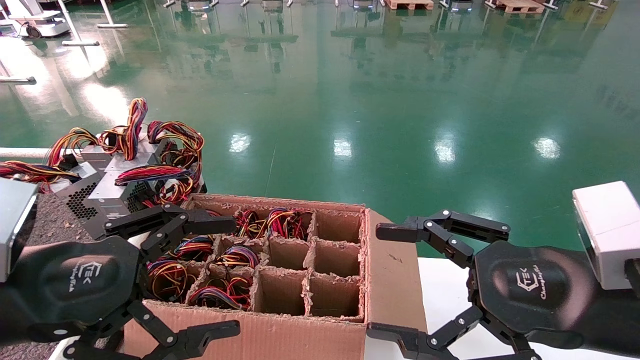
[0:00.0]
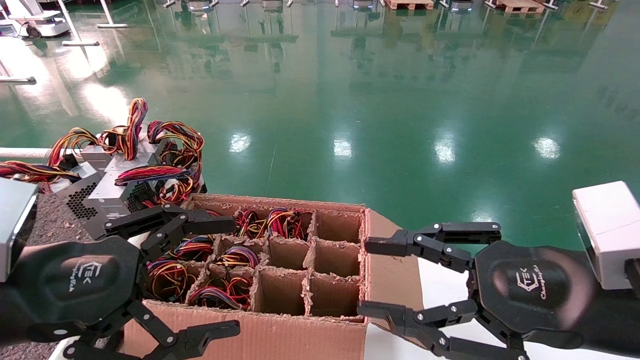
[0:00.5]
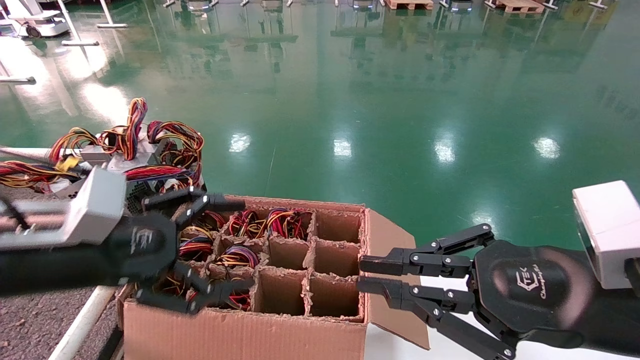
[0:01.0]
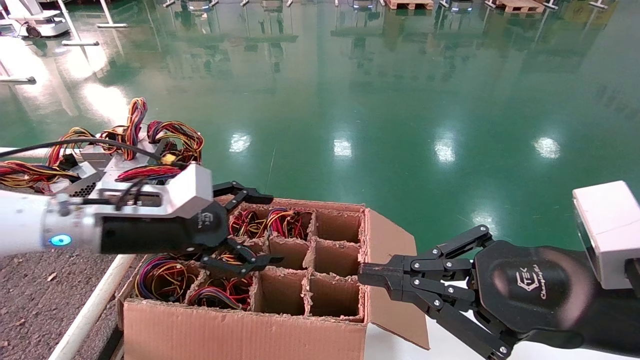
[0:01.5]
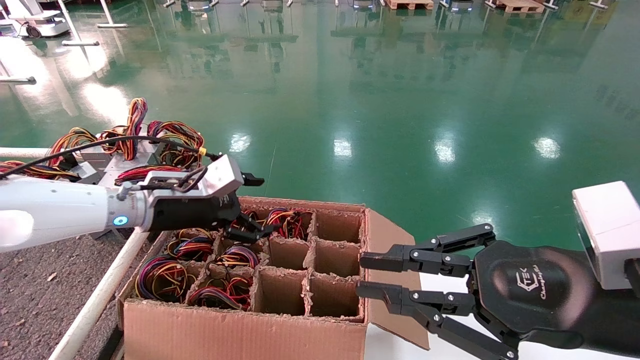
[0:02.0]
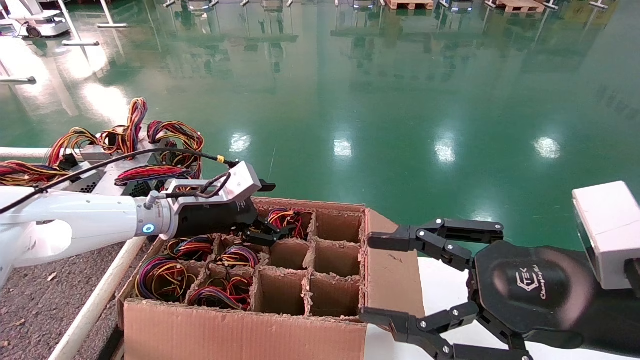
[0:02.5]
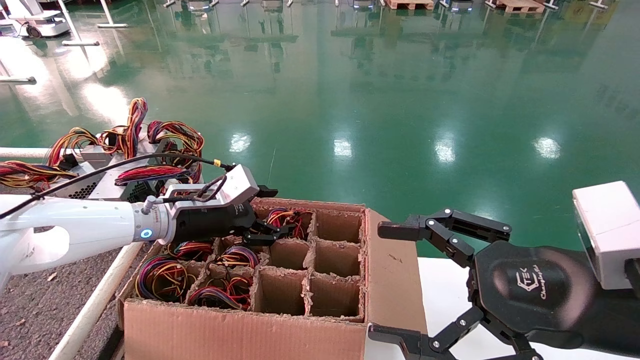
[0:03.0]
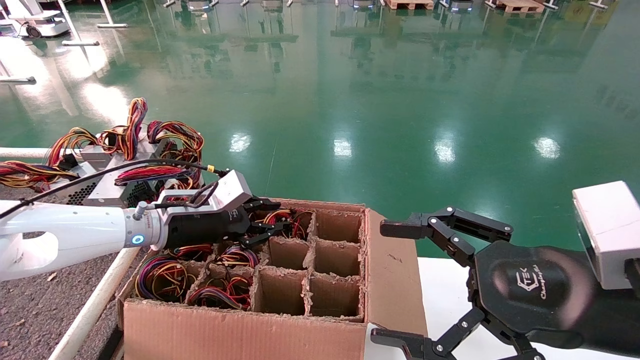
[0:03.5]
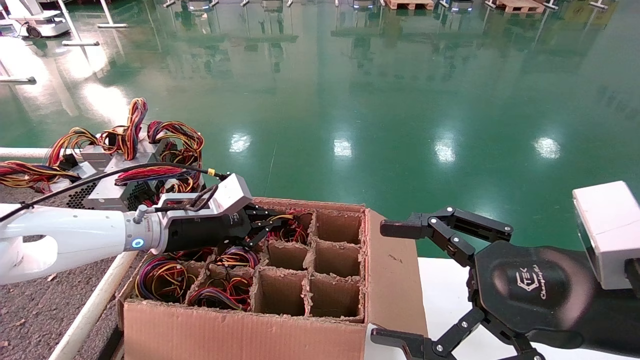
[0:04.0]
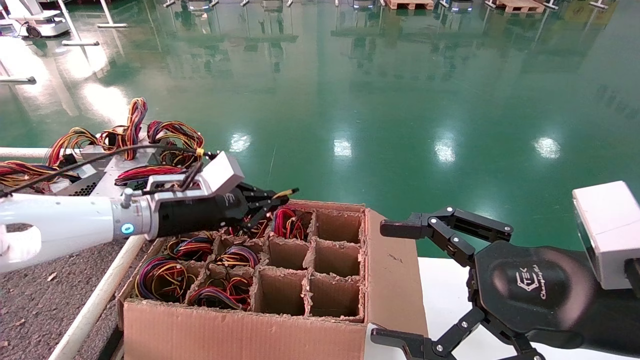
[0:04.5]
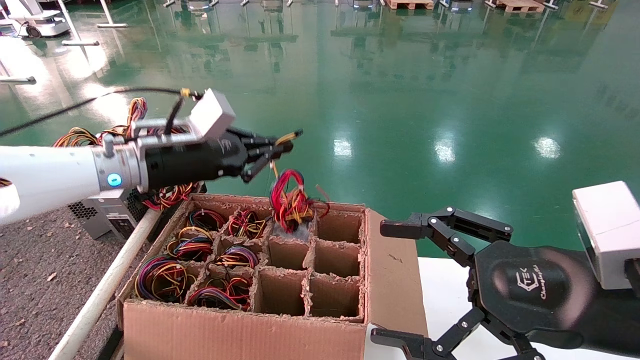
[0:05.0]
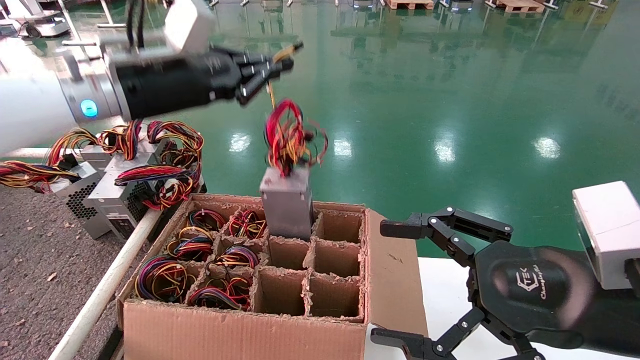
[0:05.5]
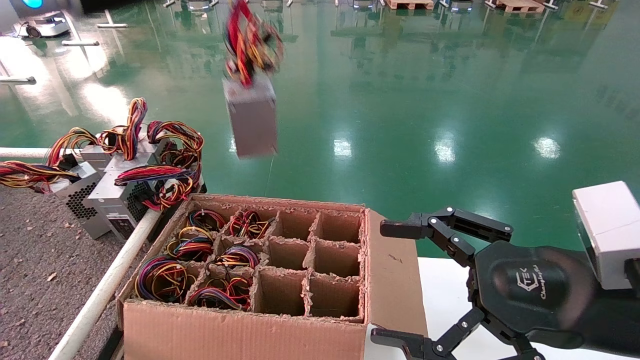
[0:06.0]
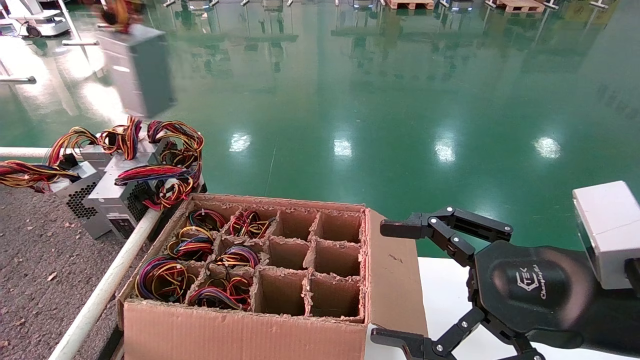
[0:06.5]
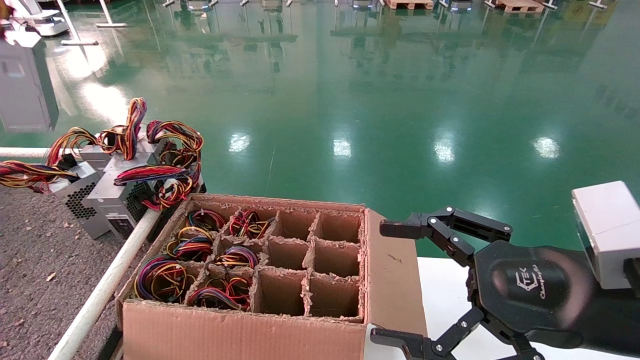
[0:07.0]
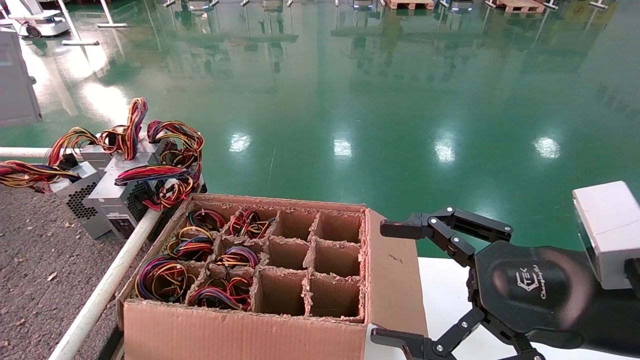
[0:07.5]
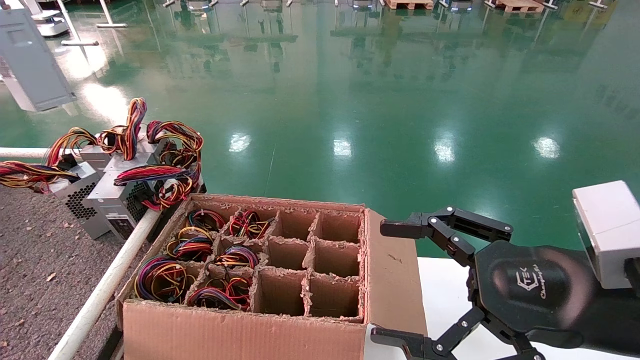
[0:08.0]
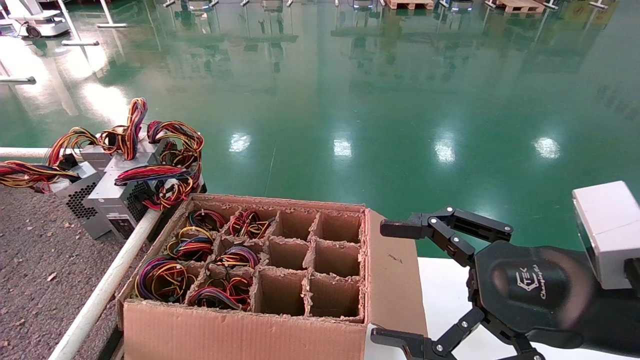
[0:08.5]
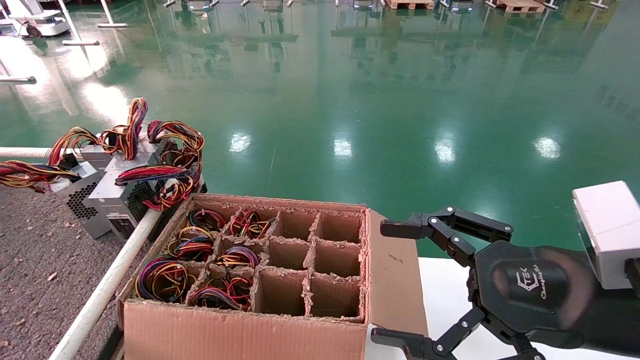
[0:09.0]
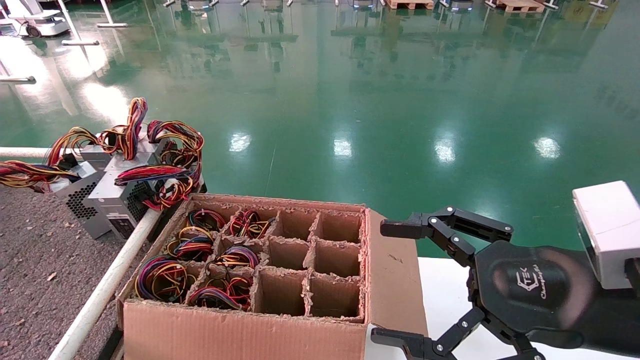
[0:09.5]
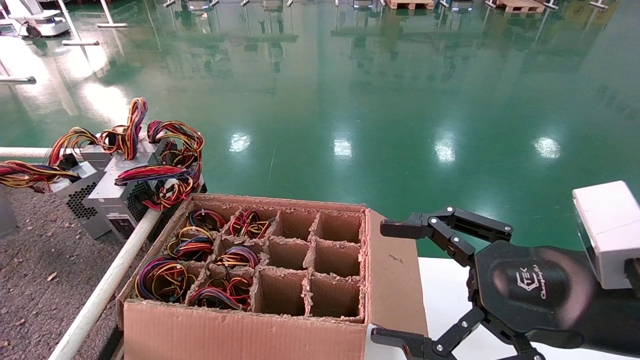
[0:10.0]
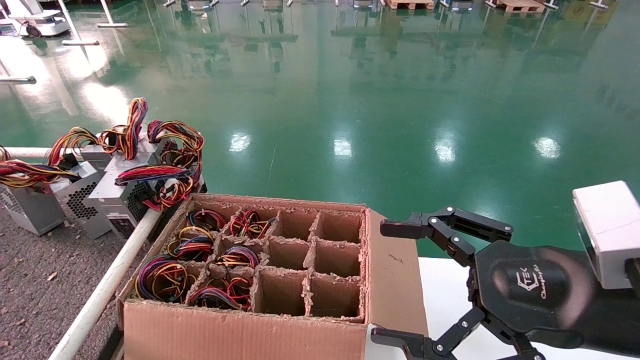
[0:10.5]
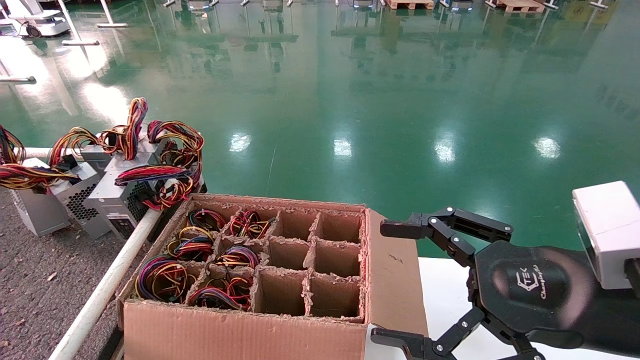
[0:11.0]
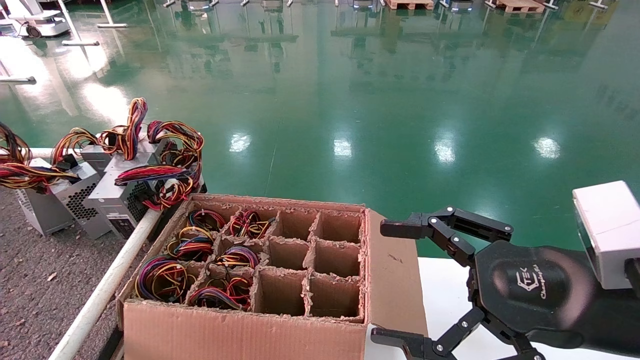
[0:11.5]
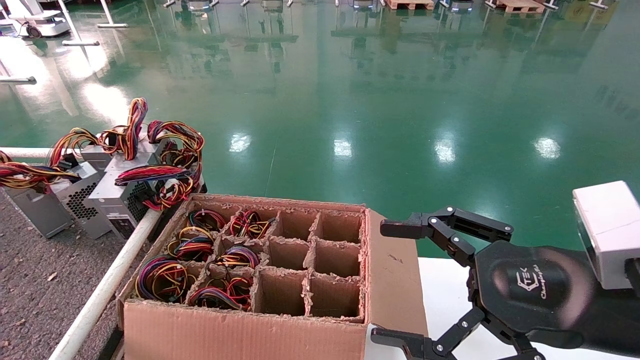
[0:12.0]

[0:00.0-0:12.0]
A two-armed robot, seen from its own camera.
Step, 0:01.0 to 0:04.0: Grab and lift the power supply from the large box.
0:00.0 to 0:02.0: The right gripper closes, while the left gripper moves forward, roughly 25 cm.
0:02.0 to 0:04.0: The right gripper opens. The left gripper closes up.
0:04.0 to 0:06.0: The left gripper goes roughly 30 cm upward.
0:06.0 to 0:08.0: The left gripper is displaced to the left by some 25 cm.
0:08.0 to 0:10.0: The left gripper shifts some 20 cm downward and to the left.
0:10.0 to 0:12.0: The left gripper ends up about 5 cm from where it was.

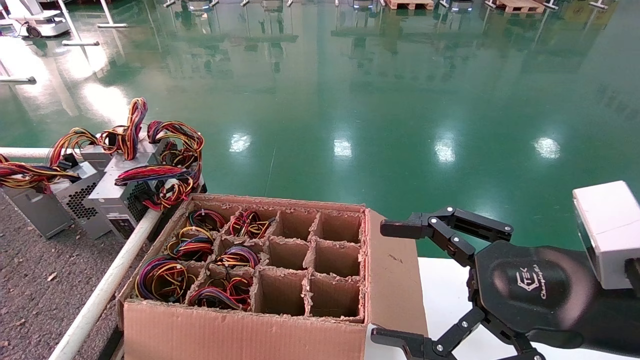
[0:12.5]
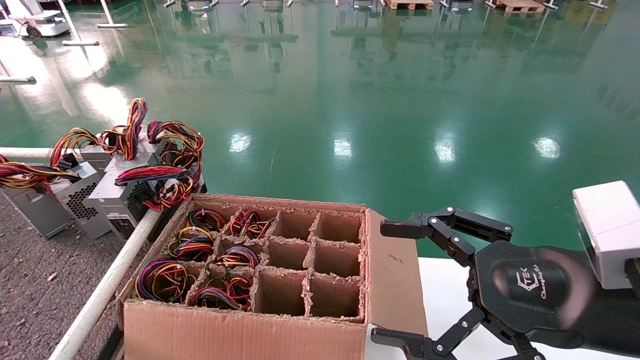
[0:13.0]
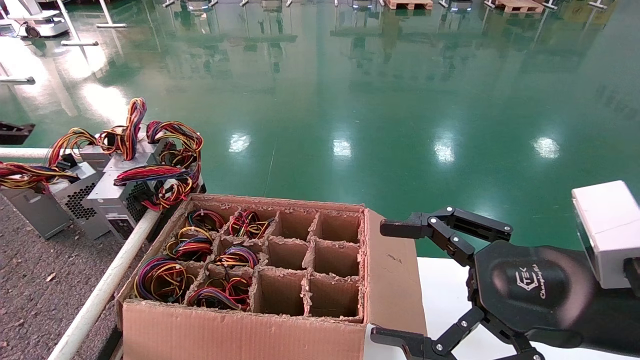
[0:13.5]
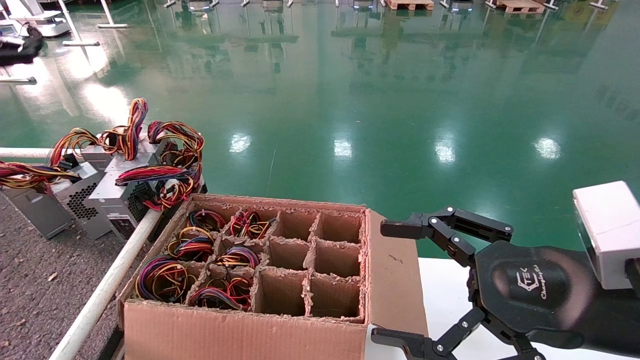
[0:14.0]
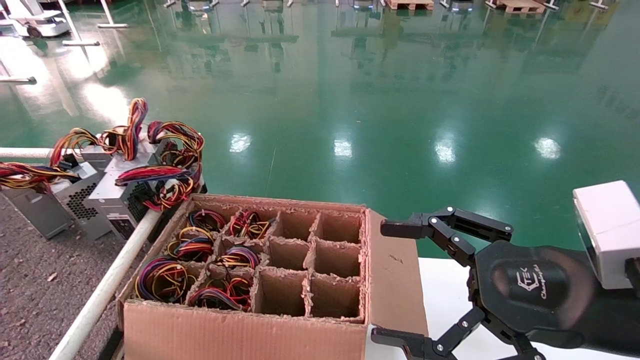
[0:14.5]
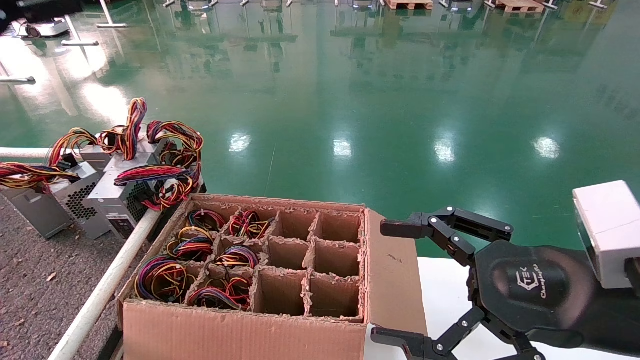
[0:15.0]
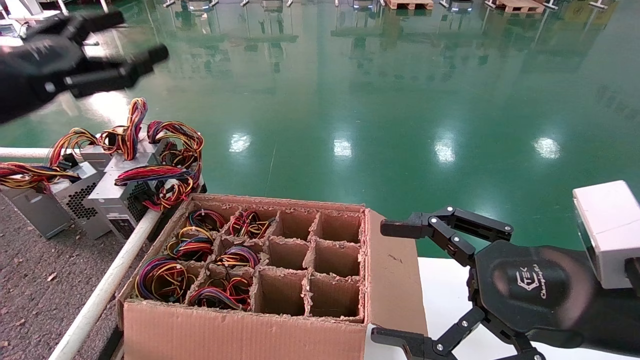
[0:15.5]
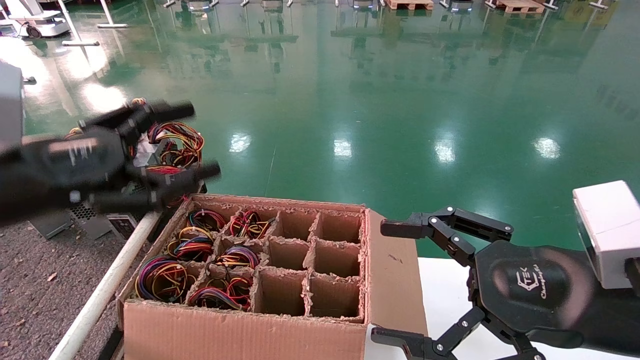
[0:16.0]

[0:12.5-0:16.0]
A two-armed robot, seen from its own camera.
0:14.5 to 0:16.0: The left gripper is displaced downward, to the right and backward by about 25 cm.
